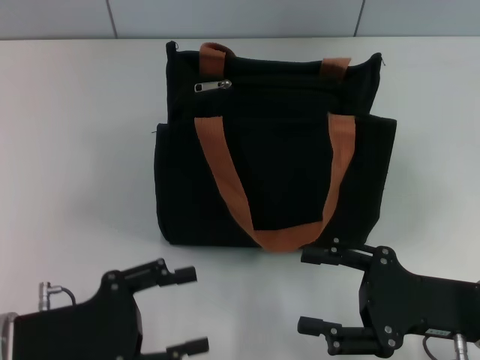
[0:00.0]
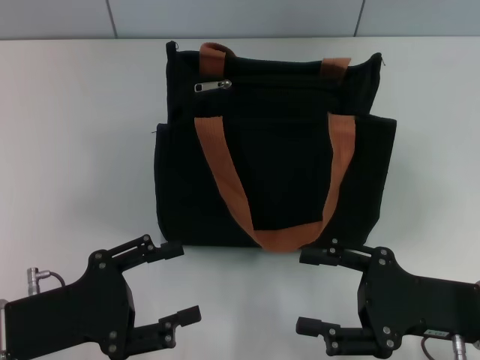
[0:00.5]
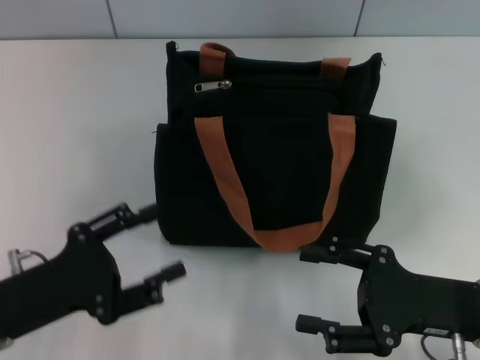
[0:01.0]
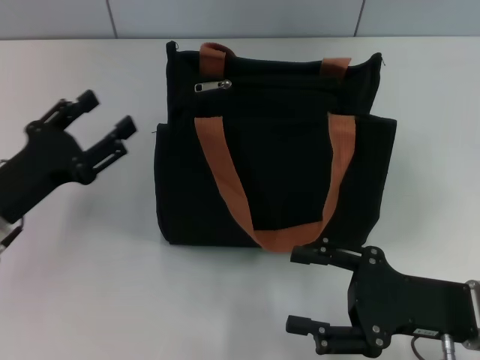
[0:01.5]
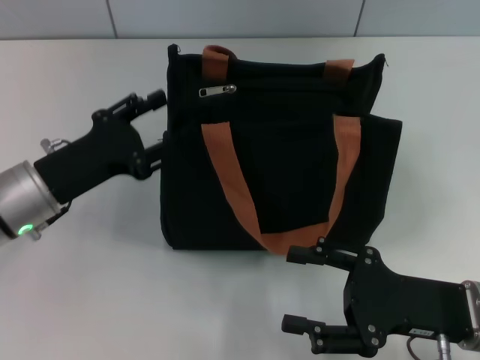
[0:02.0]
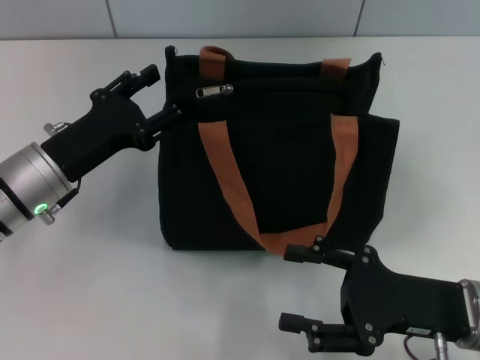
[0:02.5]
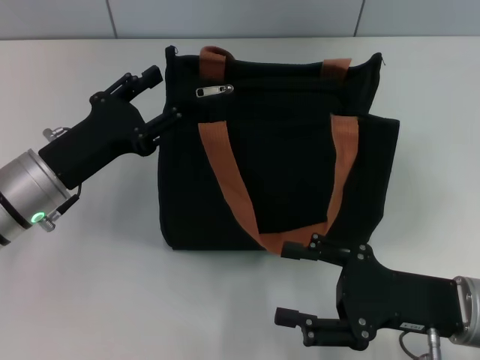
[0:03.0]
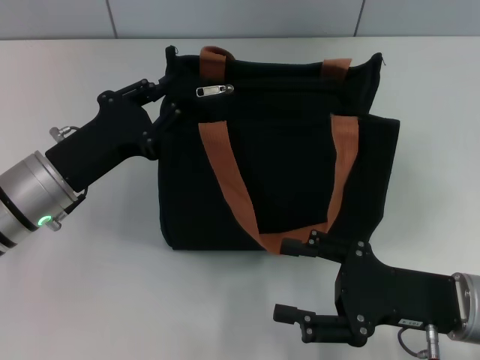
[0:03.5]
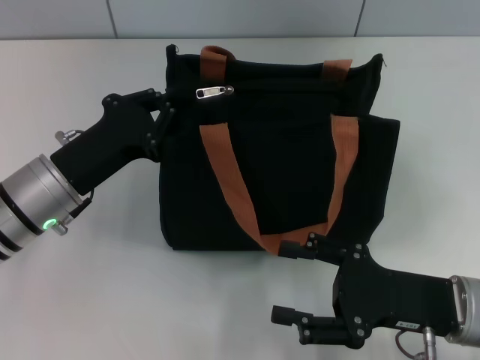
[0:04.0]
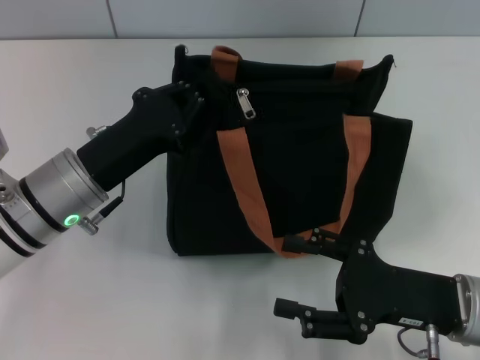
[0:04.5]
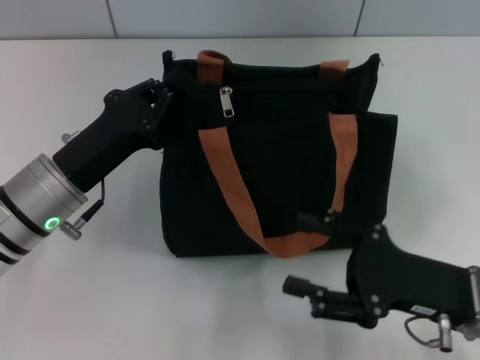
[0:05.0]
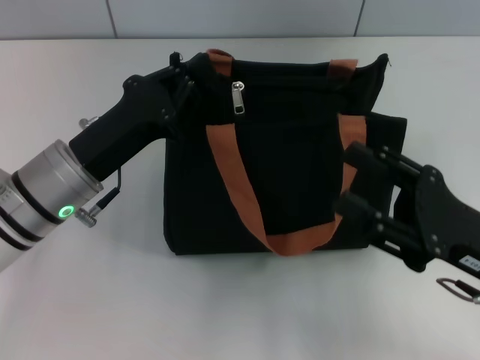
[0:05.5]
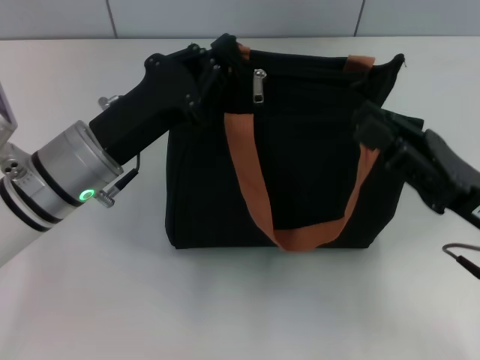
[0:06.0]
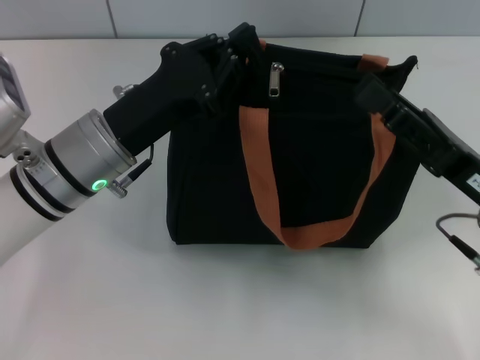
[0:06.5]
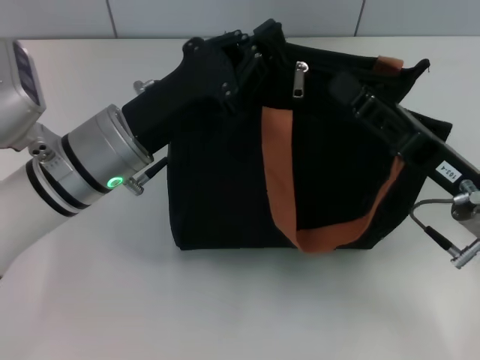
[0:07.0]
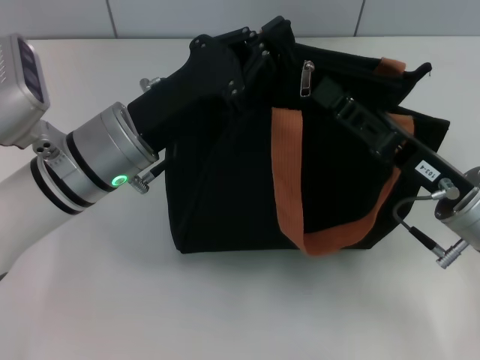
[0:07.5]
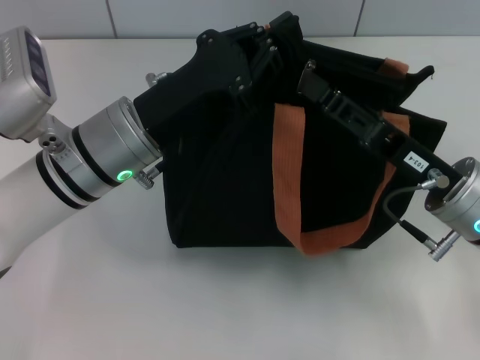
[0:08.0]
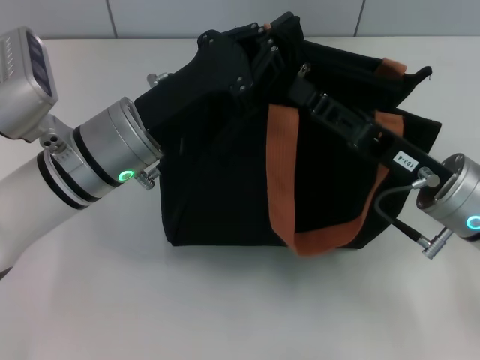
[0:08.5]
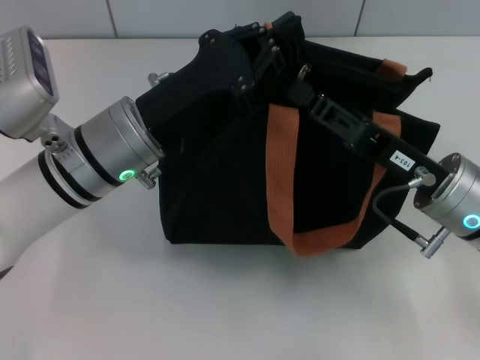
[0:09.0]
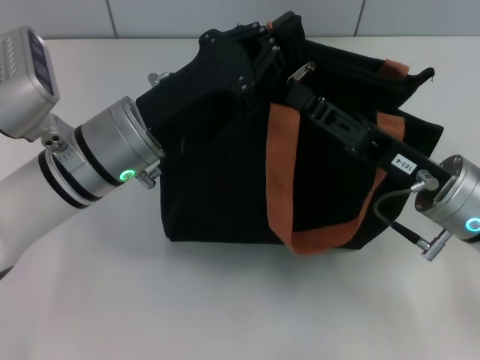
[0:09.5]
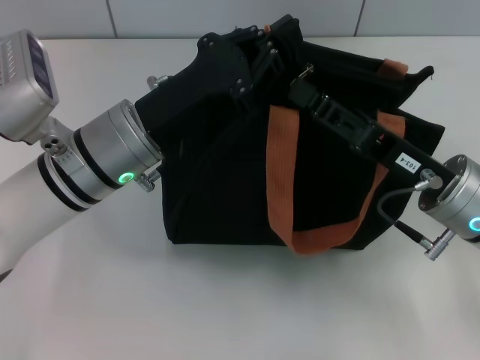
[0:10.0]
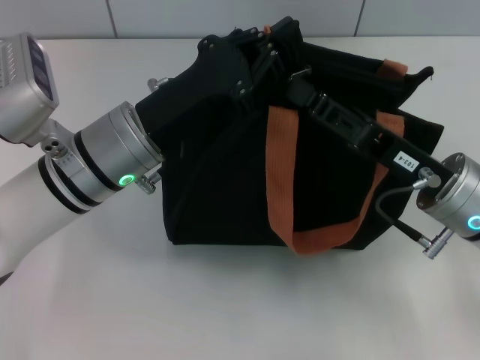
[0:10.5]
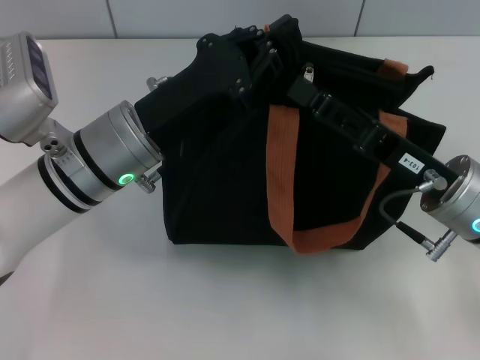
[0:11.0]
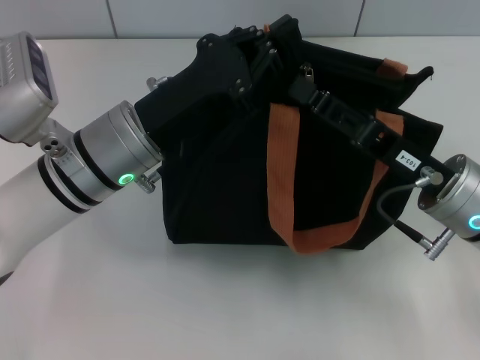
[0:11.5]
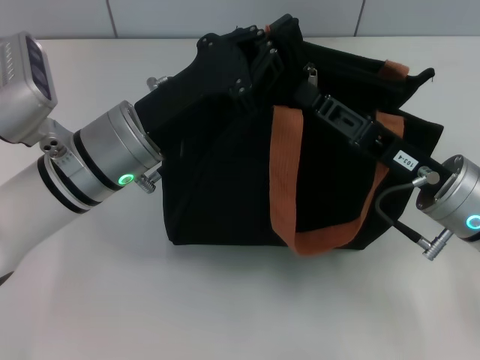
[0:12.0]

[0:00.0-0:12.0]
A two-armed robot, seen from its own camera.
0:00.0 to 0:02.0: The left gripper is displaced forward by about 10 cm.
0:02.0 to 0:04.0: The left gripper closes up.
0:04.0 to 0:06.0: The right gripper ends up approximately 5 cm from where it was, and closes up.
0:06.0 to 0:08.0: The right gripper ends up approximately 5 cm from where it was.
0:08.0 to 0:12.0: Both grippers stay about where they are.

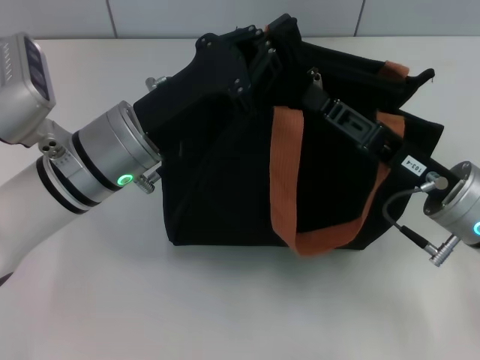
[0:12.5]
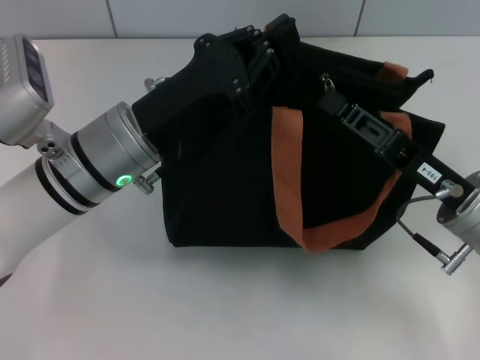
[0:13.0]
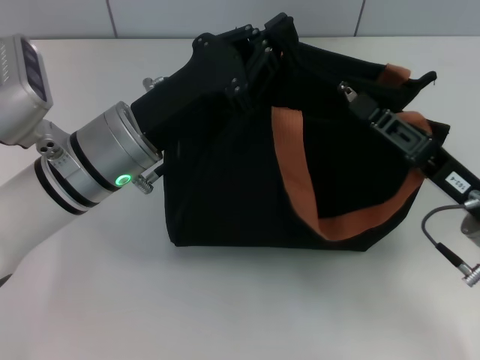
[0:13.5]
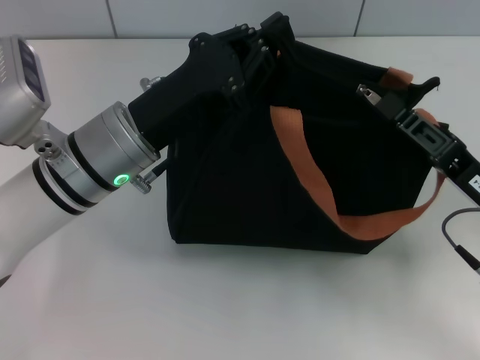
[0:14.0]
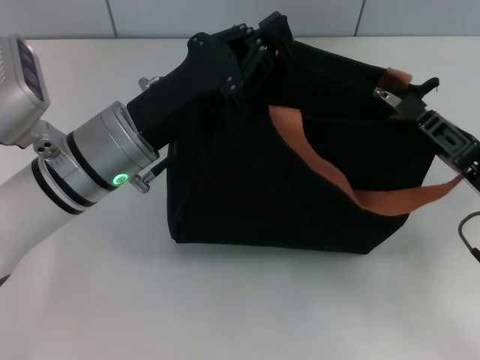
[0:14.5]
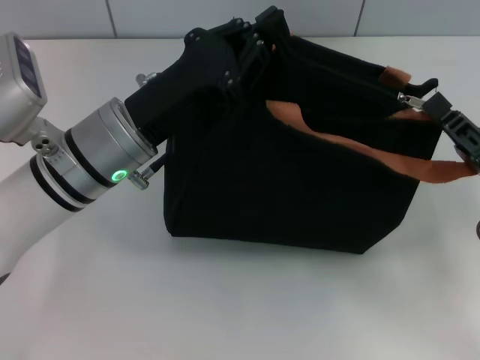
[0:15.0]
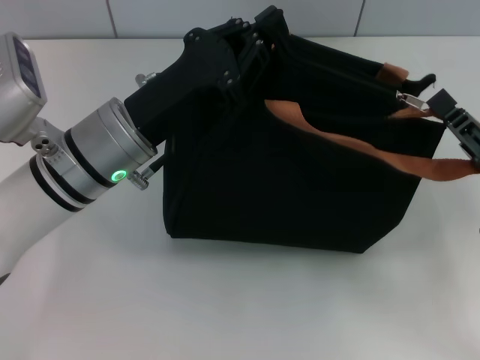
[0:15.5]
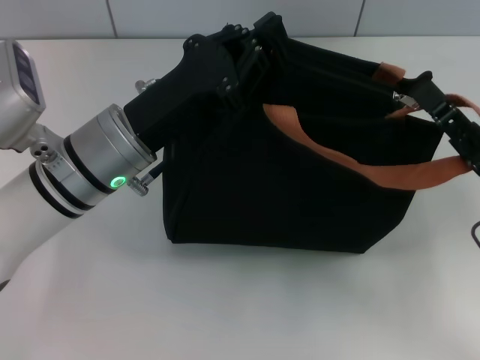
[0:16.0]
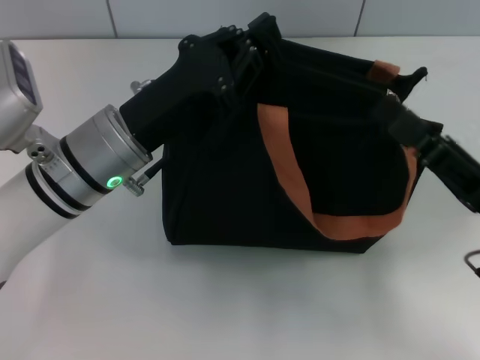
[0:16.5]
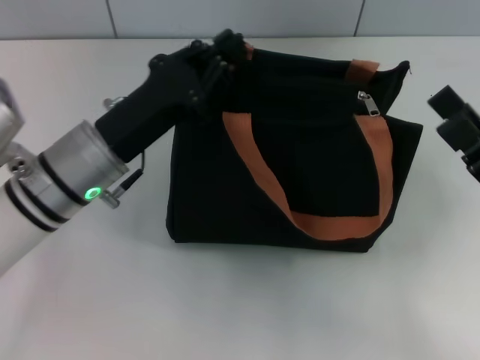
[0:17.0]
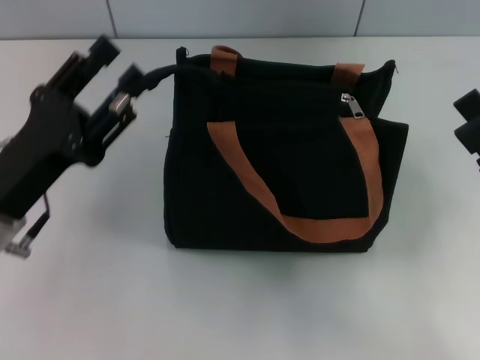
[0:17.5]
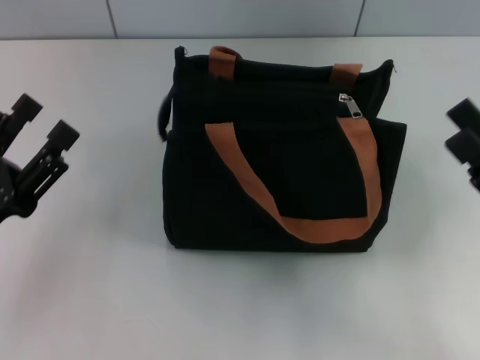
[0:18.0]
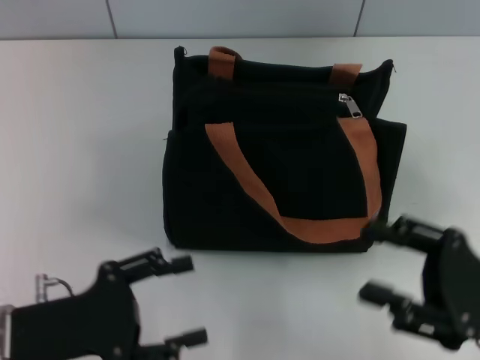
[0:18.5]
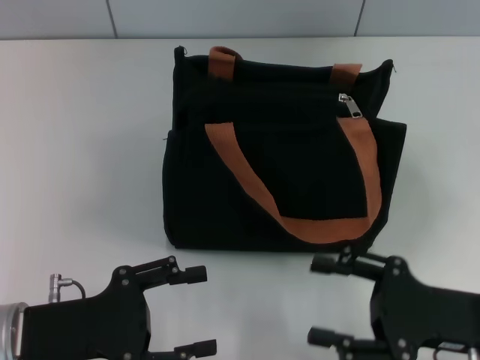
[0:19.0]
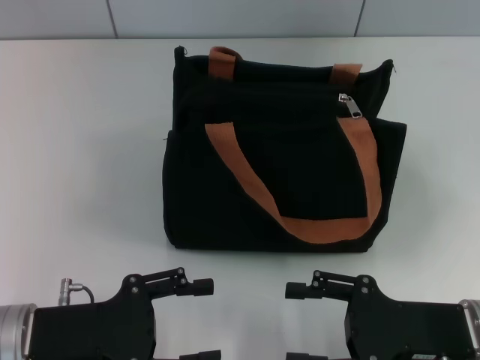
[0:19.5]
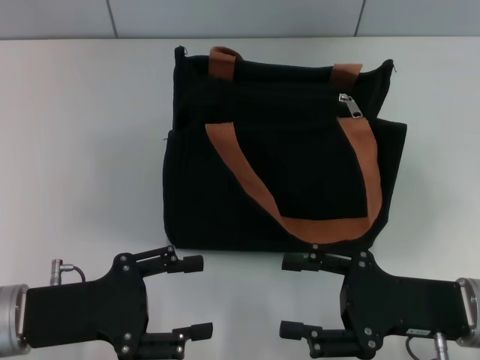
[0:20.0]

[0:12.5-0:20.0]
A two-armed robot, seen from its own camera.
Step, 0:12.5 to 0:15.0: Pull up the zipper with your right hand.
Step, 0:15.5 to 0:17.0: Grab the zipper with your left hand.
0:12.5 to 0:14.5: The right gripper moves to the right, some 5 cm.
0:14.5 to 0:16.5: The right gripper opens its fingers.
0:16.5 to 0:18.0: The left gripper is displaced to the left and backward by some 20 cm, and opens.
0:18.0 to 0:20.0: The right gripper is displaced to the left by roughly 5 cm.

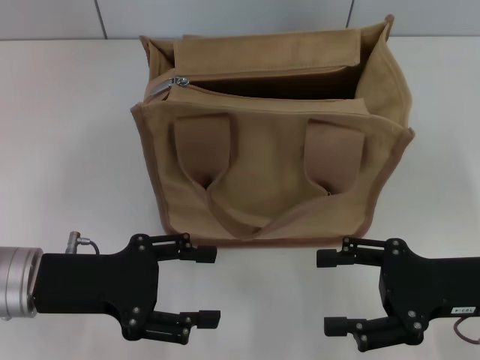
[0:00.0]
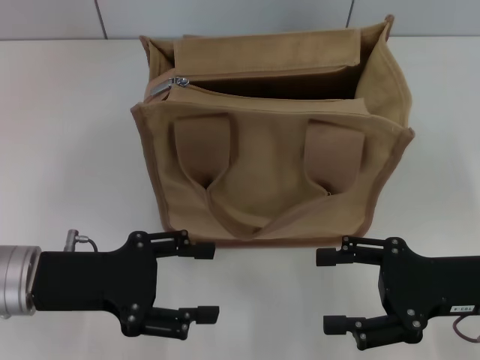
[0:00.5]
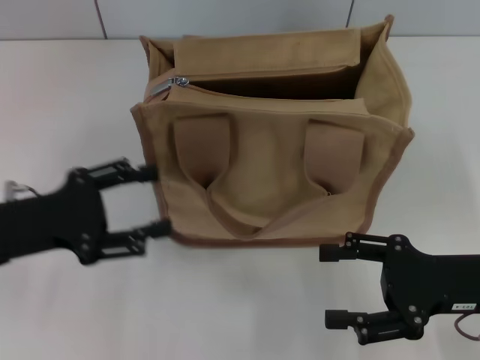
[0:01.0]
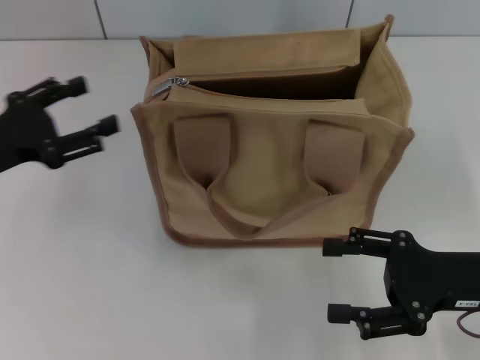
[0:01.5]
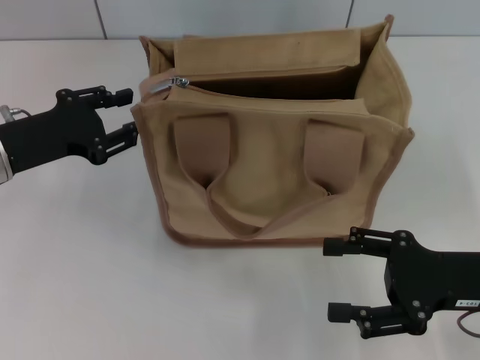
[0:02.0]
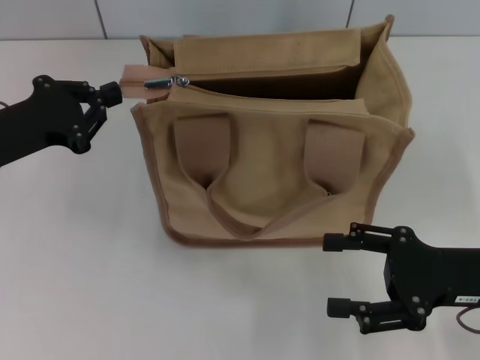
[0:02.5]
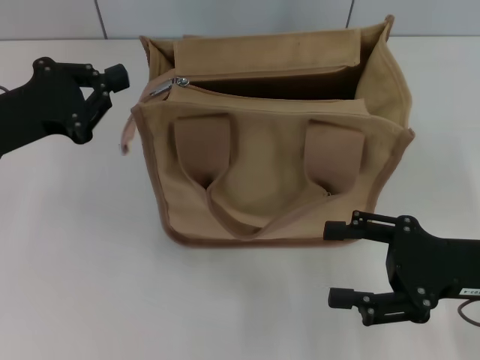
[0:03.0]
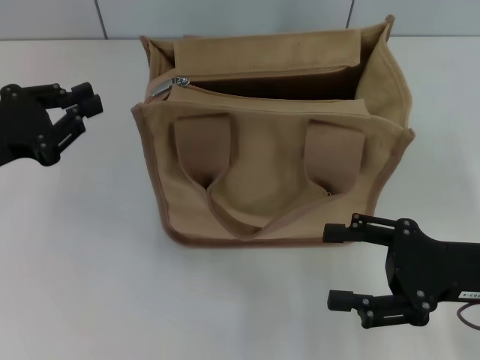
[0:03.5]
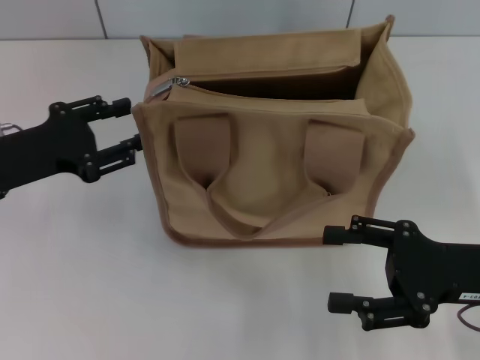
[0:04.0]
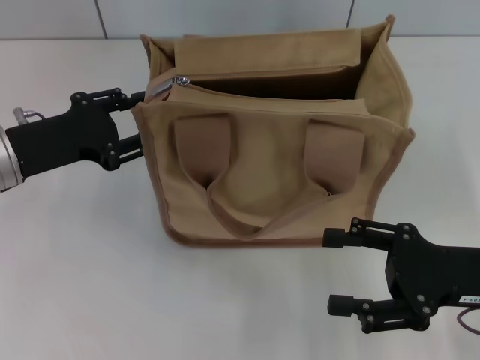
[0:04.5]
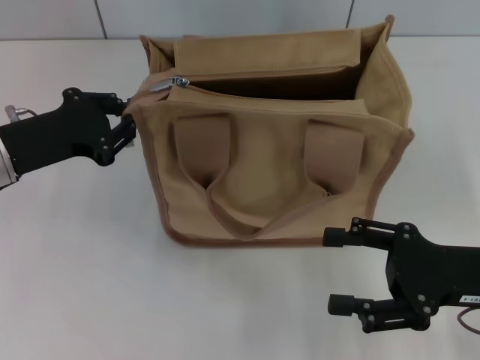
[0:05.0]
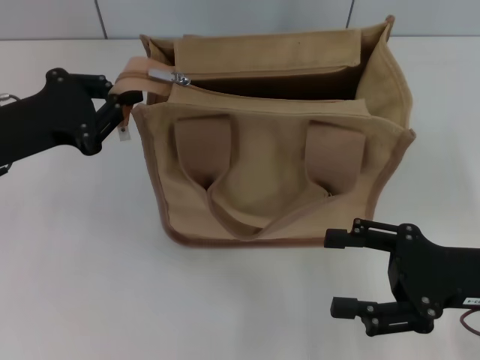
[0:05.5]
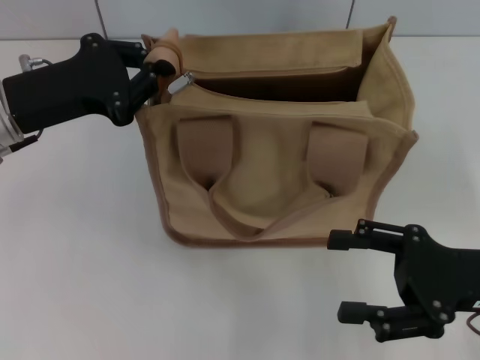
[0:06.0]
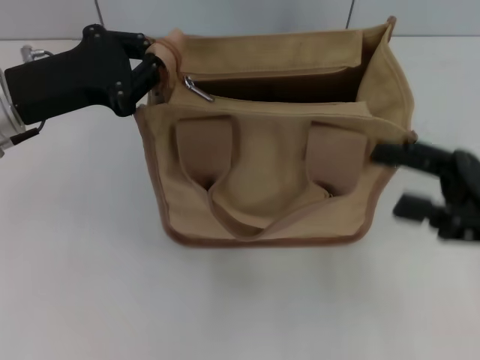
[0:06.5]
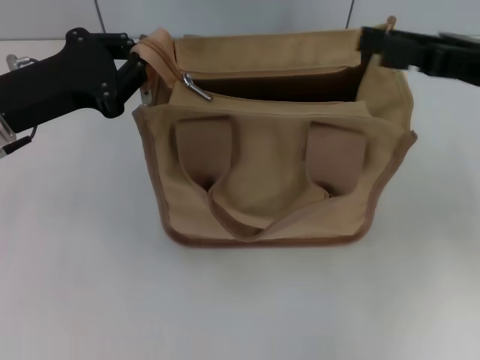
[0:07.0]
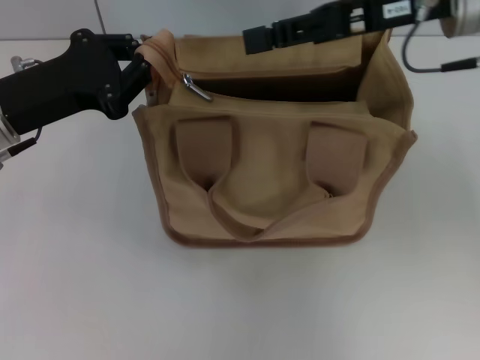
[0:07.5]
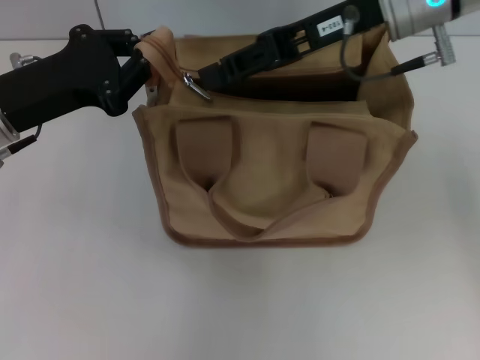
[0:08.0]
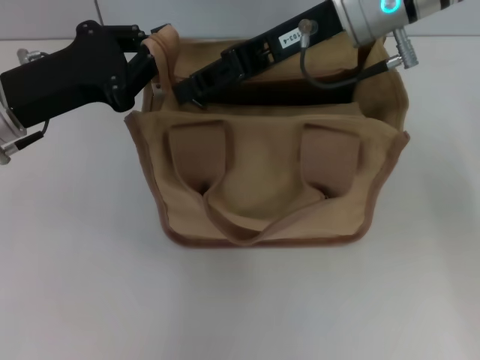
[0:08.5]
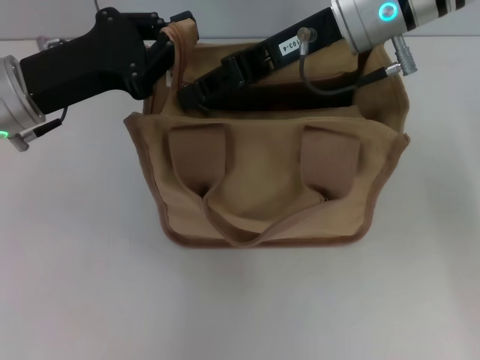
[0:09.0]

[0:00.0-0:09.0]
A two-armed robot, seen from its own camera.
0:00.0 to 0:02.0: The left gripper travels forward by some 10 cm.
0:02.0 to 0:04.5: The left gripper closes and opens again.
0:04.5 to 0:07.0: The right gripper moves upward and forward, some 15 cm; the left gripper closes its fingers.
0:07.0 to 0:09.0: The right gripper travels to the left and forward by about 20 cm, and closes its fingers.
